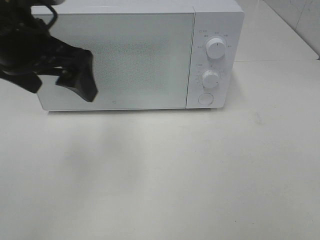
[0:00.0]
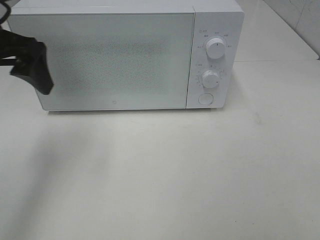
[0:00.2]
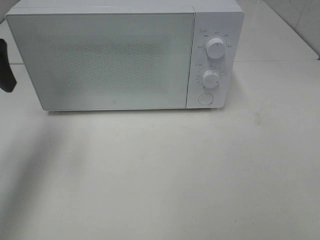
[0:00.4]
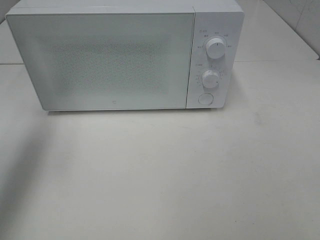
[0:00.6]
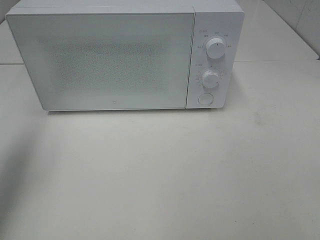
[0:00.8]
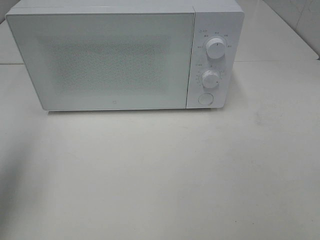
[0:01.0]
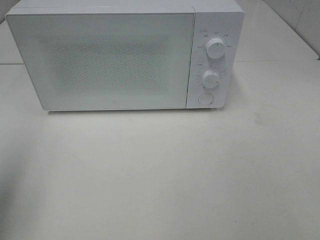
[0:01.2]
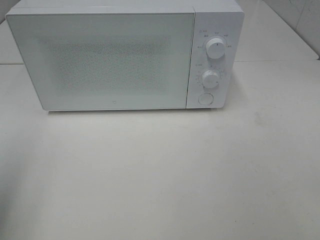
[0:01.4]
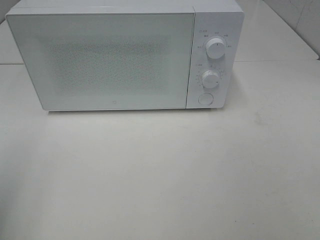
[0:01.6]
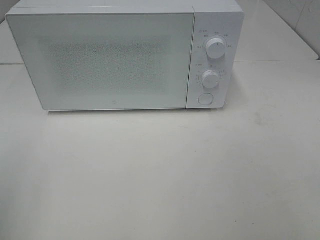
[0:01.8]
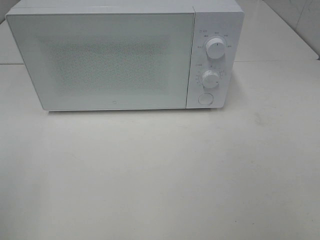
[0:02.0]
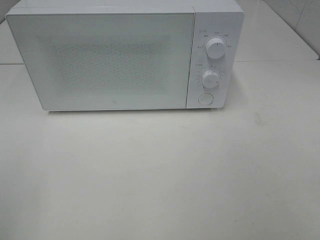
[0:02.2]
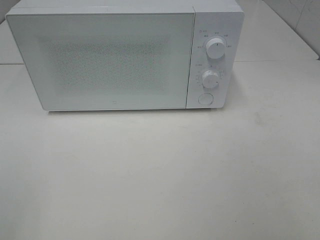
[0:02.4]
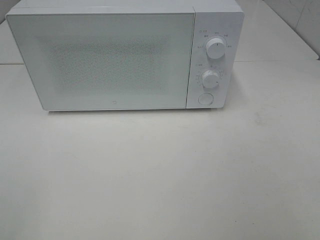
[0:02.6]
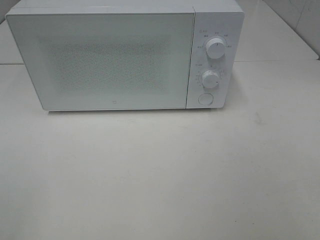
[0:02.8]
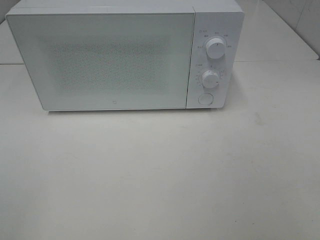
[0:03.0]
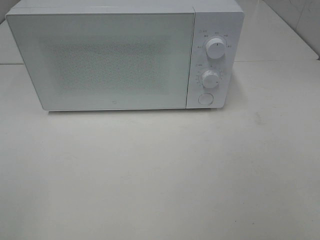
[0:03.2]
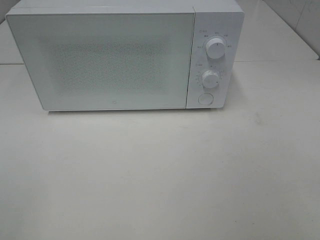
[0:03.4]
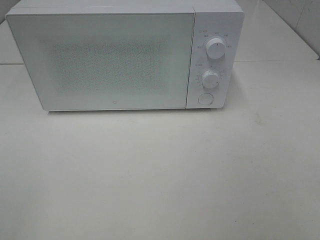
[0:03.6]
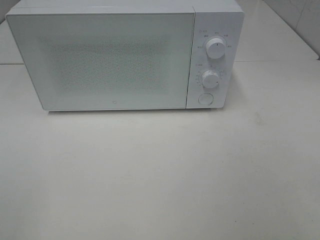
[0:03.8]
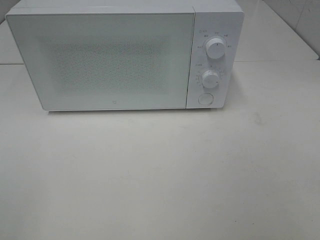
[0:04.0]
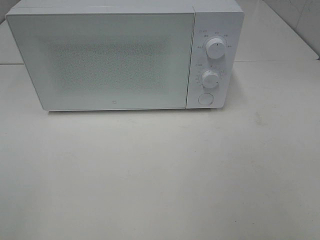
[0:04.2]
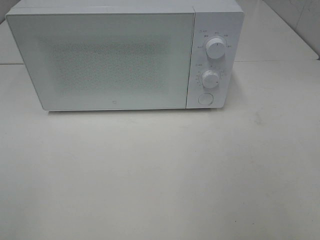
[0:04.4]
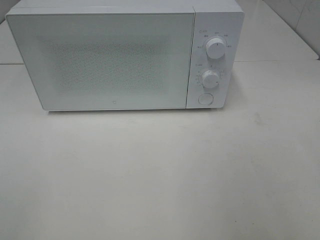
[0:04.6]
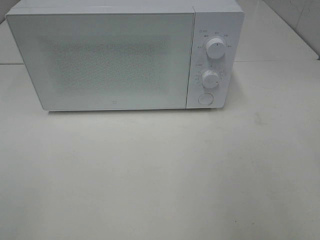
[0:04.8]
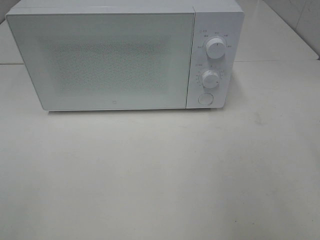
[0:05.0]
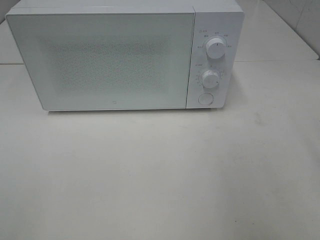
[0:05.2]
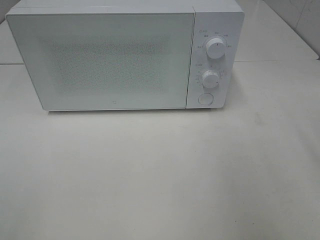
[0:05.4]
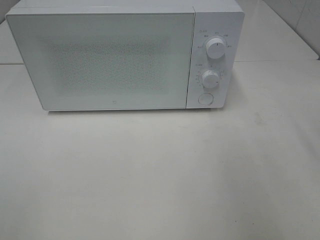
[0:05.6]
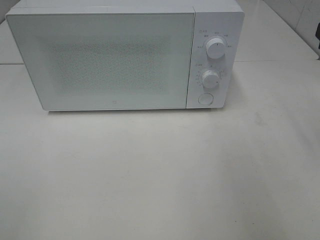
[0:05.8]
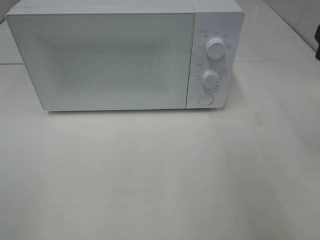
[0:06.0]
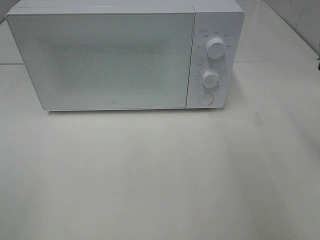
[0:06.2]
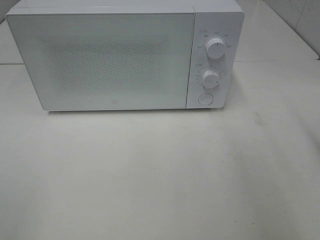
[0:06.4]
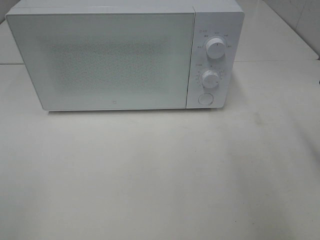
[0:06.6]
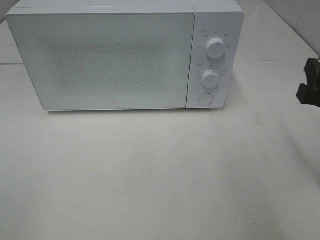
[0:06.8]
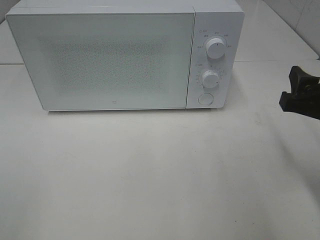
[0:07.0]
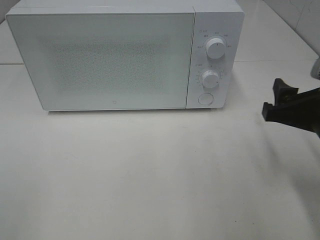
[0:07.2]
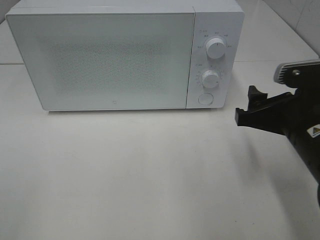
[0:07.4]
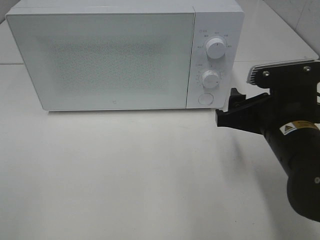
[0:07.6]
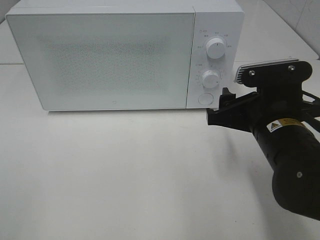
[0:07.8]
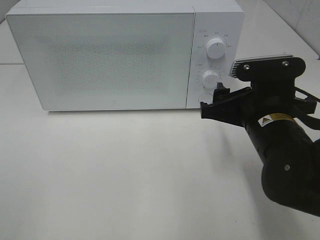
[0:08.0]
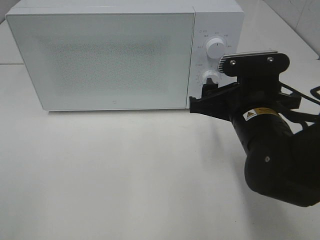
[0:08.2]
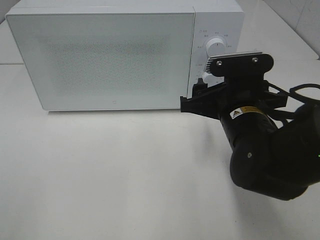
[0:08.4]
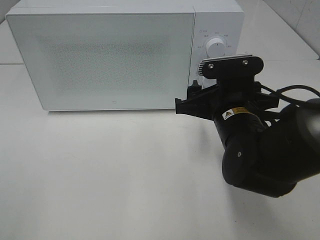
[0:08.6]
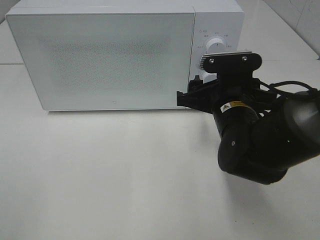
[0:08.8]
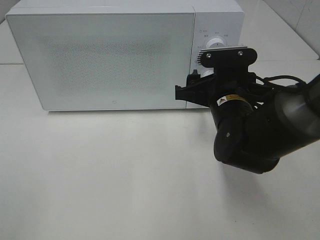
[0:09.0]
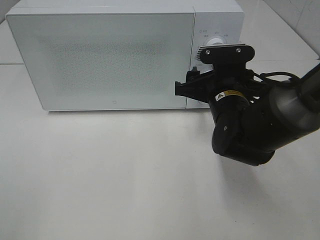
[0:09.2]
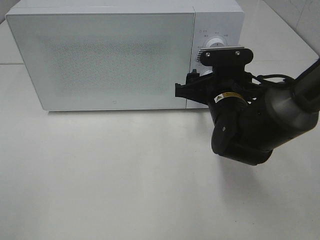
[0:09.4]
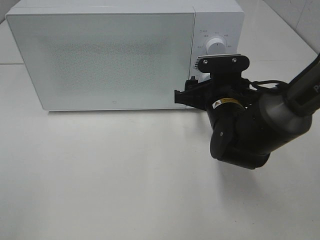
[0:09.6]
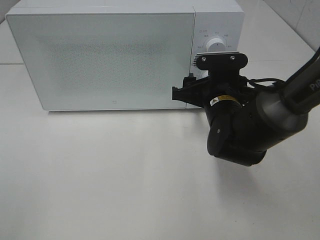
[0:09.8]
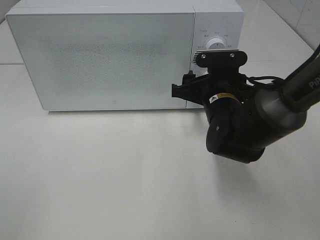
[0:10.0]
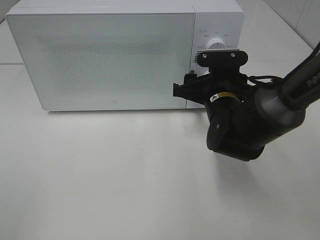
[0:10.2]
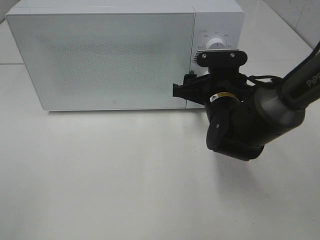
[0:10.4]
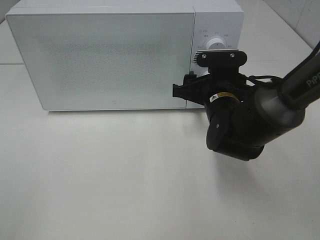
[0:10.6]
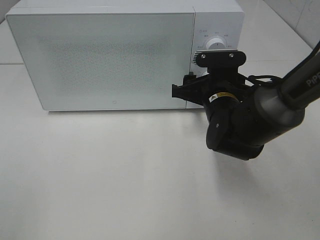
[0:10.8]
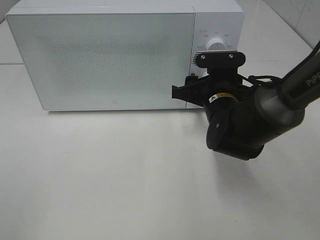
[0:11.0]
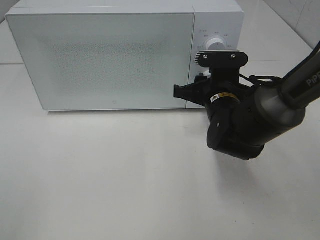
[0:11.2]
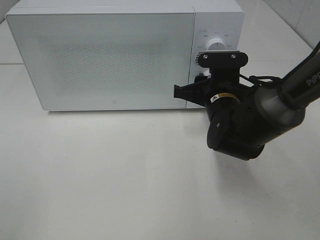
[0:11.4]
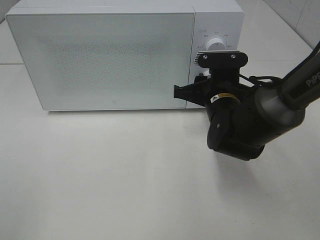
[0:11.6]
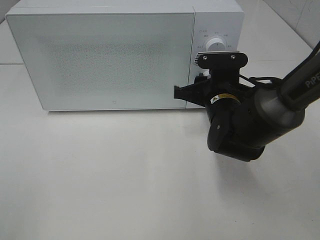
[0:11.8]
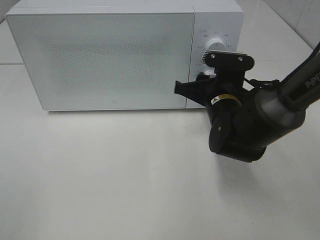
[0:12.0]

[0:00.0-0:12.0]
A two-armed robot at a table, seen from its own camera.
Task of the whole recording: Heat the burger.
0:00.0 to 0:01.6: The left gripper moves backward and to the left, some 25 cm.
0:06.0 to 0:07.6: The right gripper heads to the left and downward, covering approximately 15 cm.
0:07.6 to 0:09.0: The right gripper shifts about 10 cm forward.
0:09.0 to 0:10.4: There are only small adjustments of the grippers.
0:10.4 to 0:12.0: The right gripper closes.

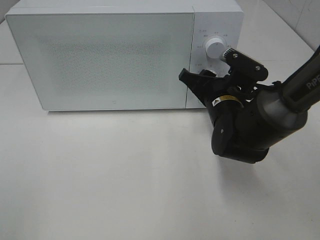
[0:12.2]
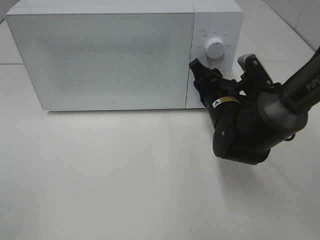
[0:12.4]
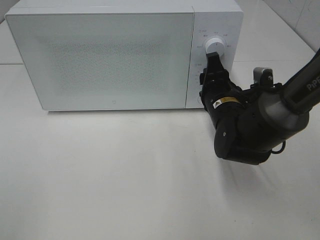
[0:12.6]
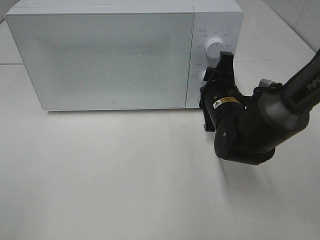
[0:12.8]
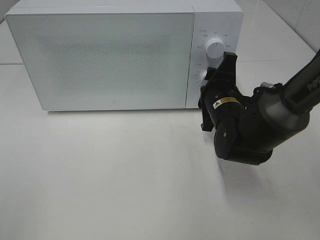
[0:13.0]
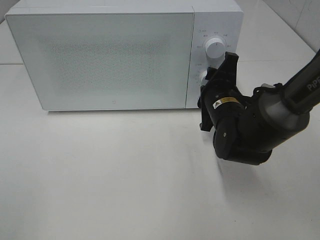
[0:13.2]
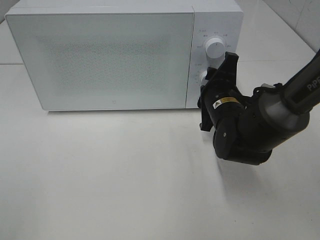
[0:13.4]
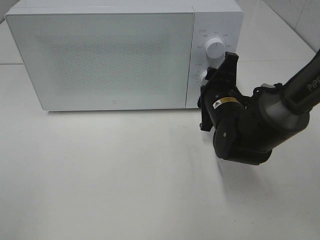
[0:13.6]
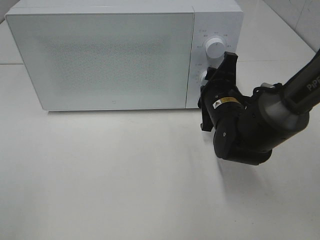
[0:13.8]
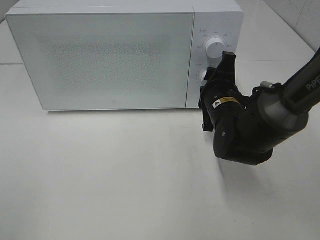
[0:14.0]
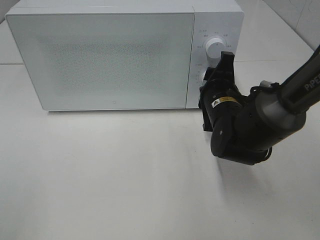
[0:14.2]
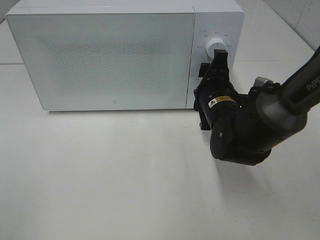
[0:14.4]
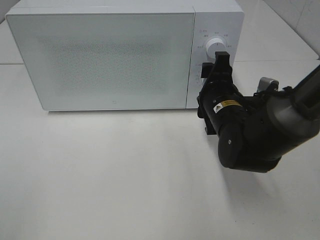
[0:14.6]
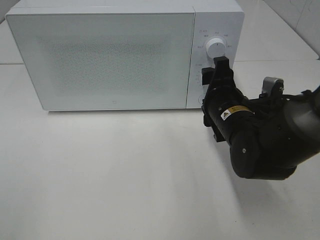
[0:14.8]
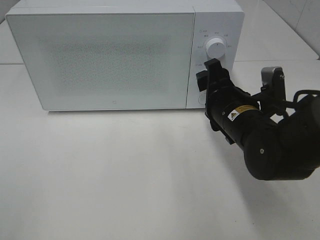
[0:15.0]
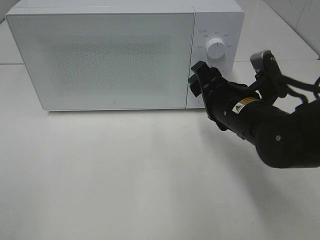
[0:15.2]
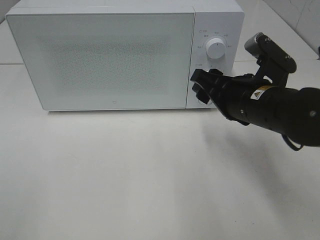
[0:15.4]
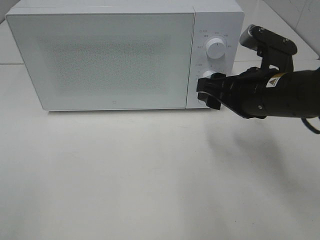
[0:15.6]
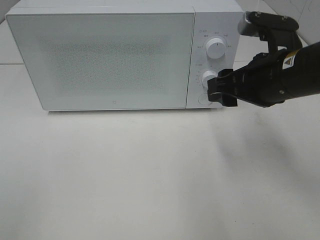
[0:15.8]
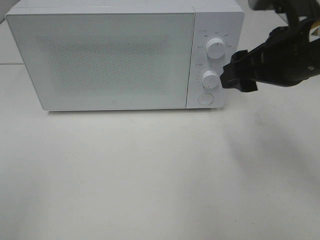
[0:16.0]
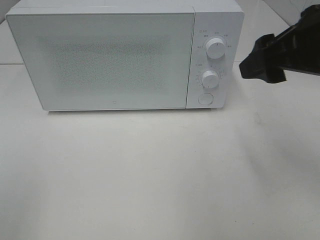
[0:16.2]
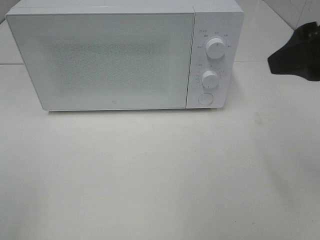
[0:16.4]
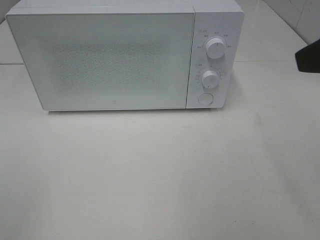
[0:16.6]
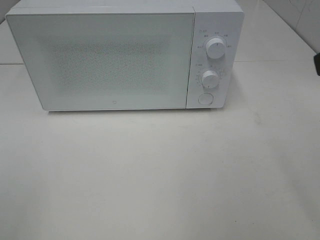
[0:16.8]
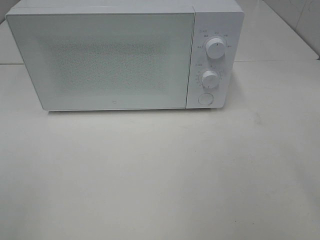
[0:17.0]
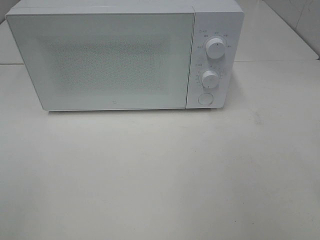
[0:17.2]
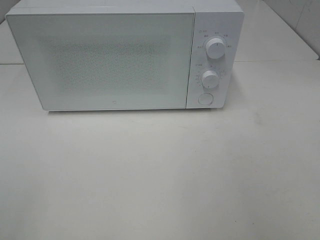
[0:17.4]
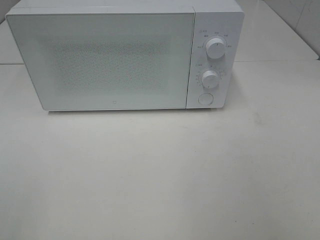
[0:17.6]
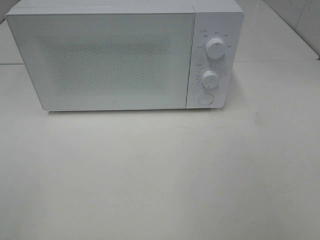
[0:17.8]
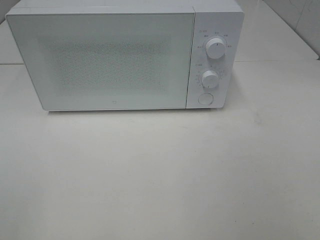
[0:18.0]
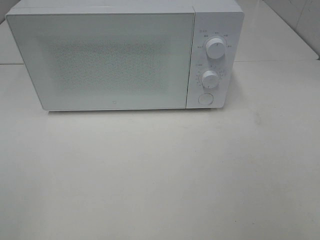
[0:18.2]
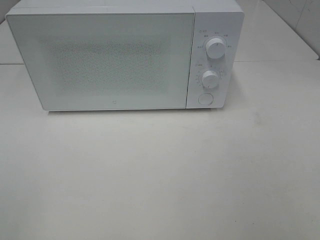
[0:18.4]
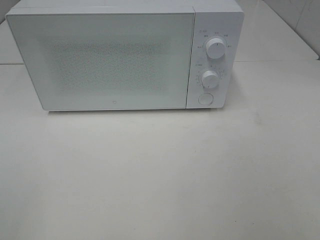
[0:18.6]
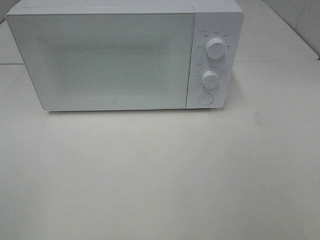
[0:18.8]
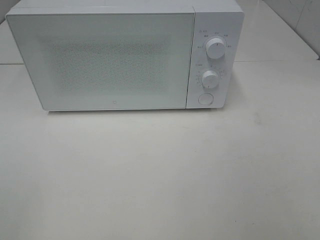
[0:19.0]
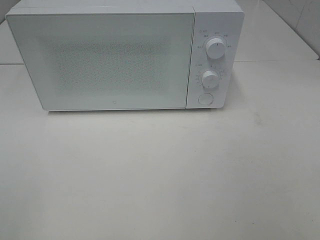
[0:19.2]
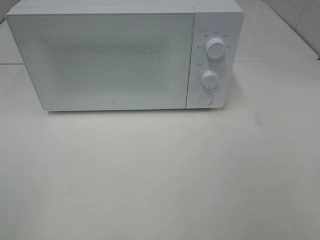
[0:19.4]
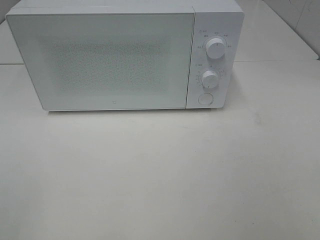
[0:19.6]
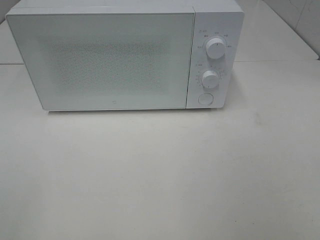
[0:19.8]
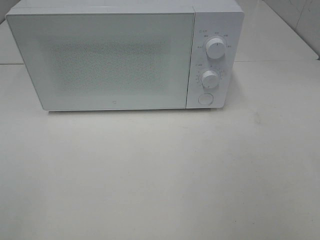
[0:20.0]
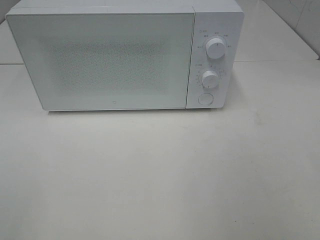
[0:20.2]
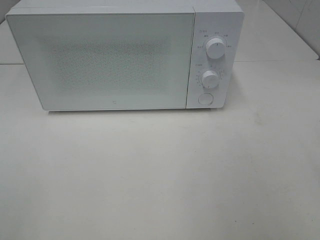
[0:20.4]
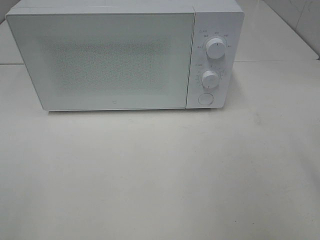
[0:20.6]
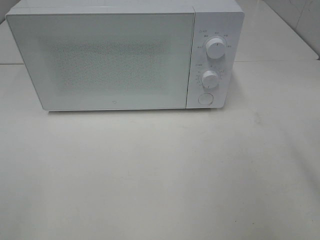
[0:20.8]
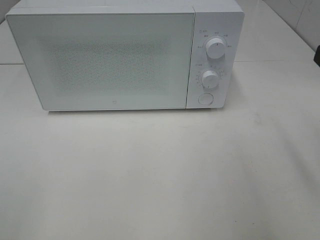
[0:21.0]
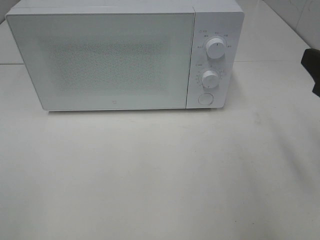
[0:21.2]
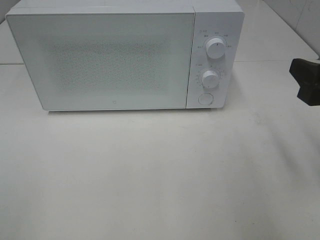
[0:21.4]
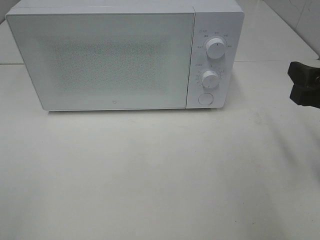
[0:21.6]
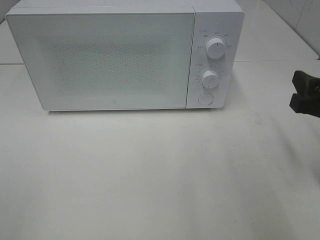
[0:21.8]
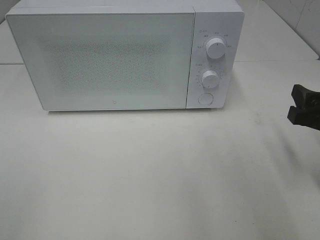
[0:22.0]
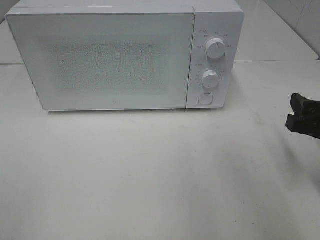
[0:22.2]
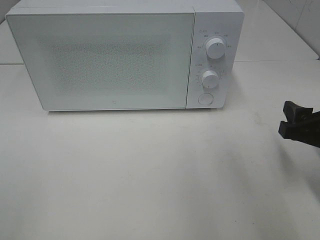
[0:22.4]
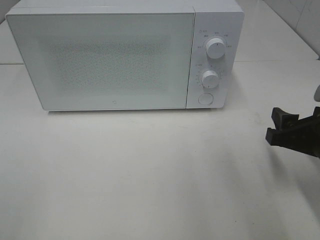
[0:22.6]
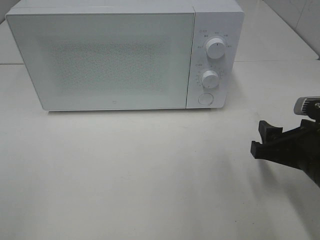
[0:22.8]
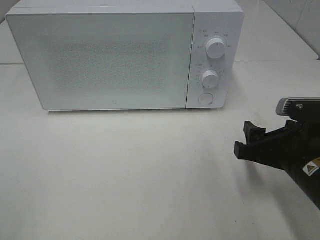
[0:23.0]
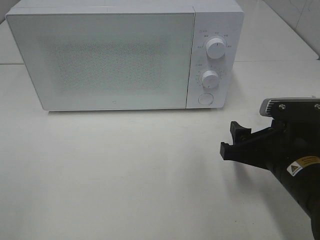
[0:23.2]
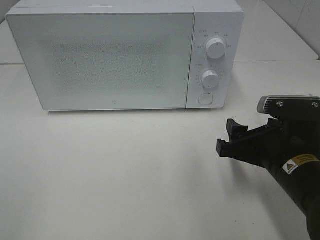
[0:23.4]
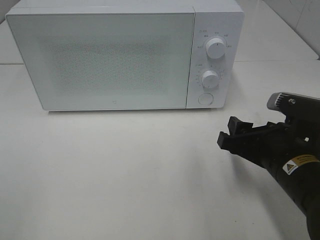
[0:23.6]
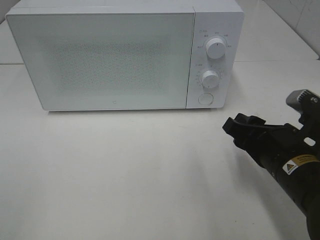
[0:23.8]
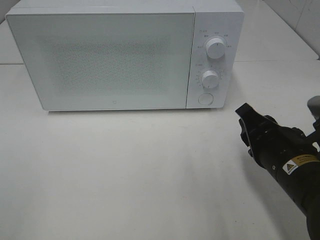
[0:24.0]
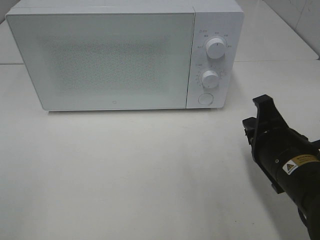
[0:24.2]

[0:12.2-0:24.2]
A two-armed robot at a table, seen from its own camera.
Task of the whole recording: Heat the burger.
Step, 0:12.2 to 0:14.4: Right hand: twist timer button.
0:13.8 to 0:15.2: The right gripper moves backward, about 5 cm.
0:15.2 to 0:16.6: The right gripper goes about 25 cm upward, backward and to the right.
0:16.6 to 0:18.2: The right gripper goes about 15 cm backward and to the right.
0:19.8 to 0:21.2: The right gripper heads forward and downward, covering approximately 15 cm.
0:21.2 to 0:22.6: The right gripper is displaced downward by approximately 10 cm.
0:22.6 to 0:24.2: The right gripper goes some 5 cm to the left, and closes its fingers.
